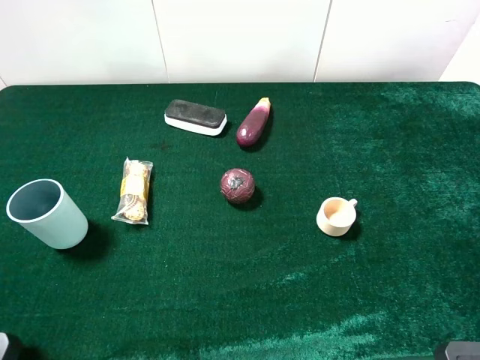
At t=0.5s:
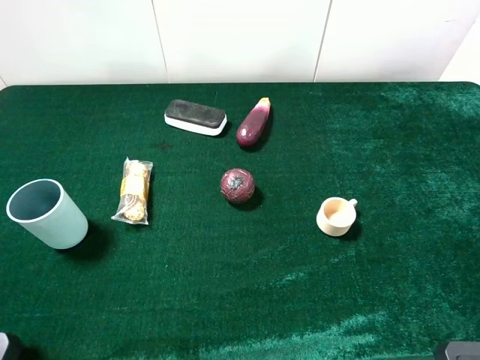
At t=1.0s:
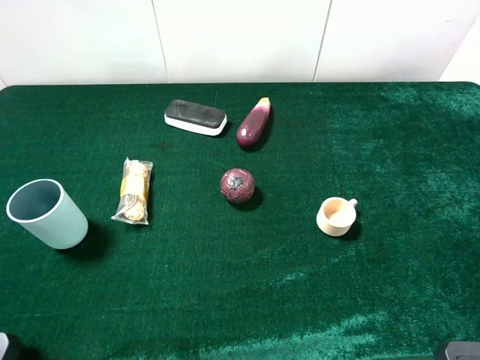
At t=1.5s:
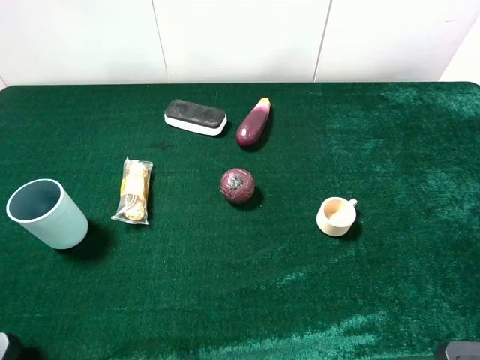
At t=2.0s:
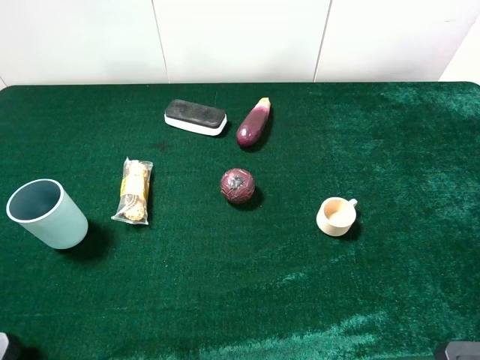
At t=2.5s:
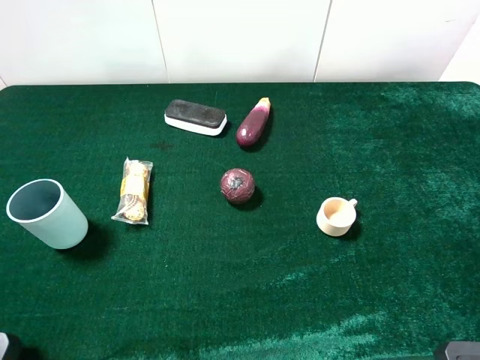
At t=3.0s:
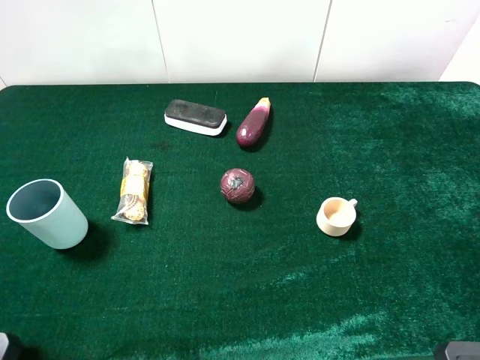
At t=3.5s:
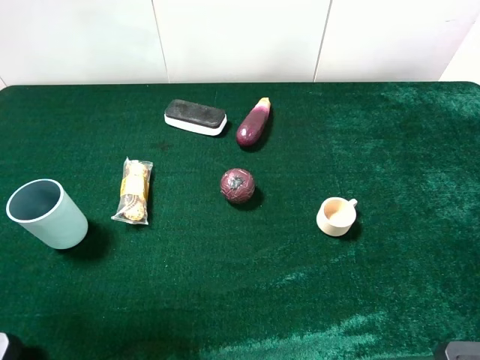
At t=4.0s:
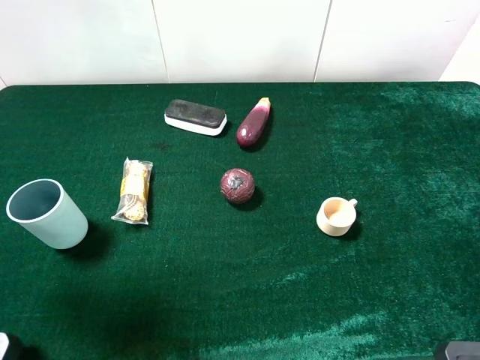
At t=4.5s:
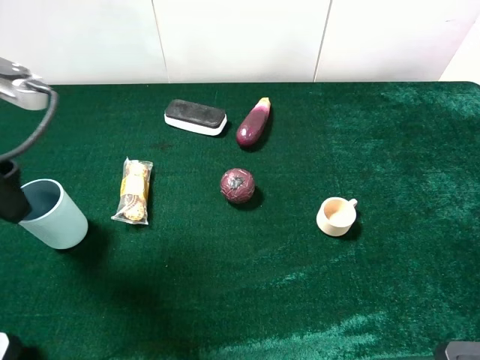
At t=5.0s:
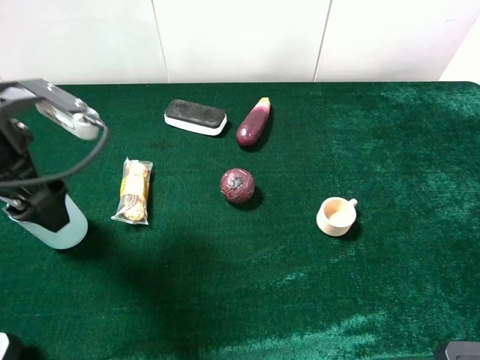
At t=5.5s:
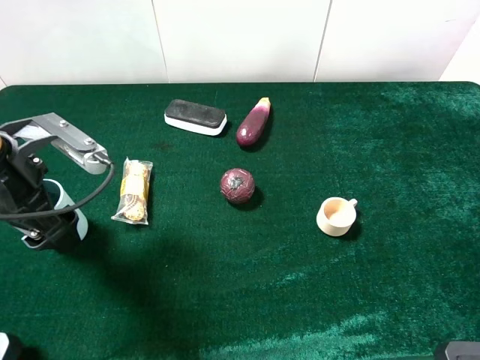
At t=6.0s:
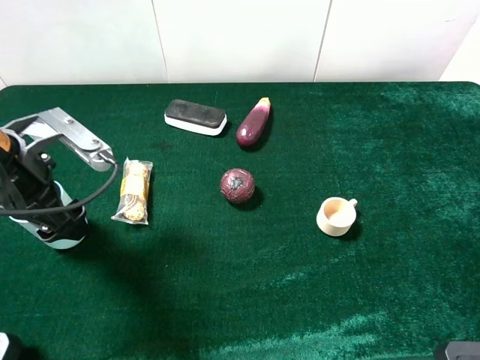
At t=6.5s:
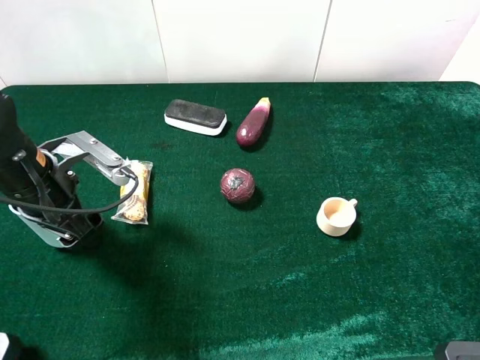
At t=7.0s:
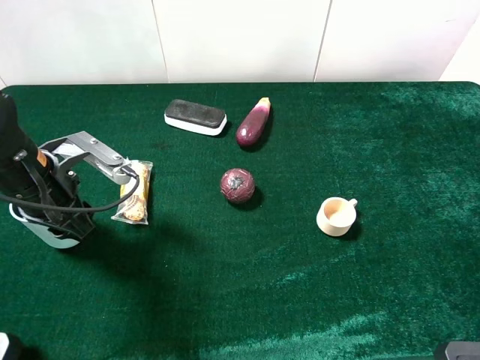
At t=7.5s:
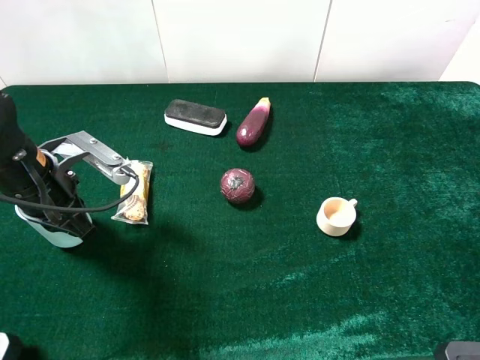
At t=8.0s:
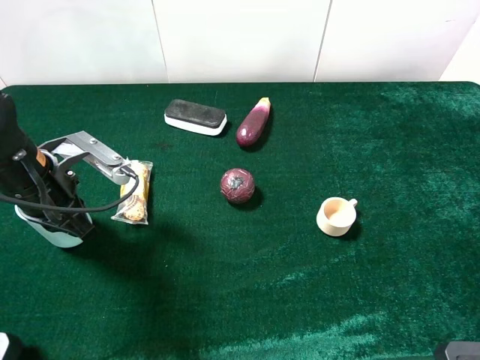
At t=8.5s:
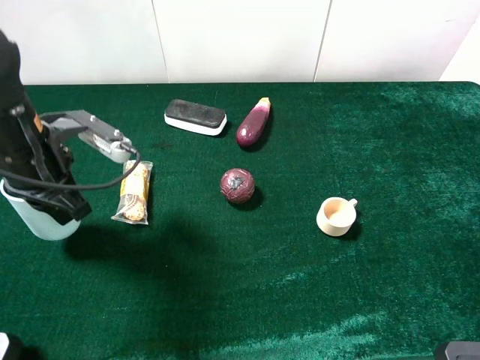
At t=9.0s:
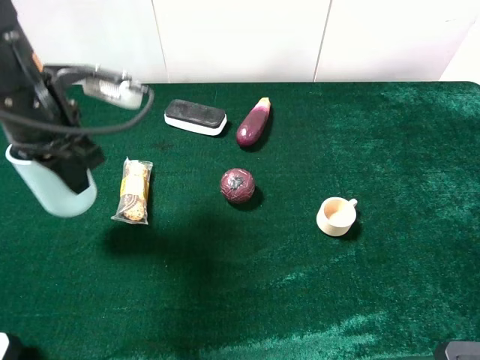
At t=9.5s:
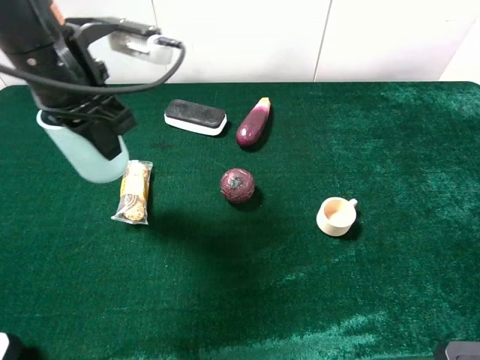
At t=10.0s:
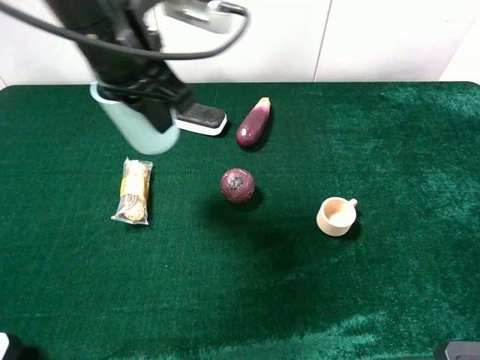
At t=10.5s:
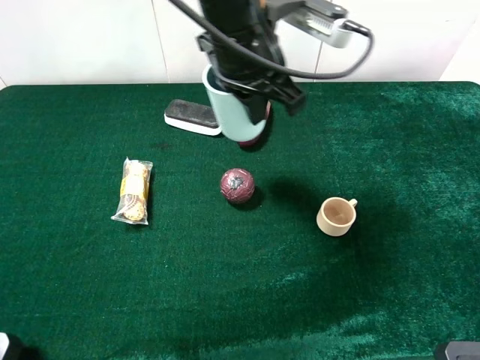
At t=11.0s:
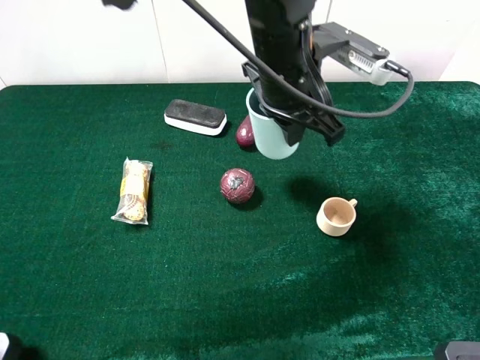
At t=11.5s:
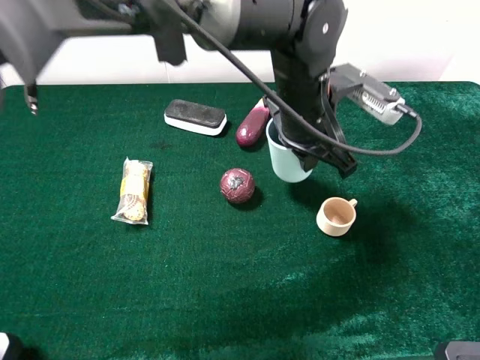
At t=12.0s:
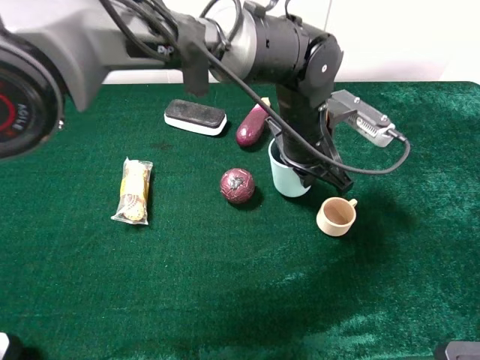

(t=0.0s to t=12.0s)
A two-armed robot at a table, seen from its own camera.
Task of the whole recording: the gripper move the object.
Step, t=0.0s - t=8.0s: Grasp the cyan cup with the left gripper.
t=0.0s - t=2.0s: Both grippers stay put.
t=2.0s - t=4.0s: The left gripper is displaced forward by some 15 cm.
t=4.0s - t=6.0s: The left gripper shifts about 15 cm downward, to the right and forward.
t=6.0s - t=8.0s: The left gripper closes.
t=8.0s - t=10.0s: The left gripper is displaced upward, to the right and forward by roughly 20 cm.
t=10.0s - t=12.0s: The left gripper is displaced to the right and downward by approximately 25 cm.

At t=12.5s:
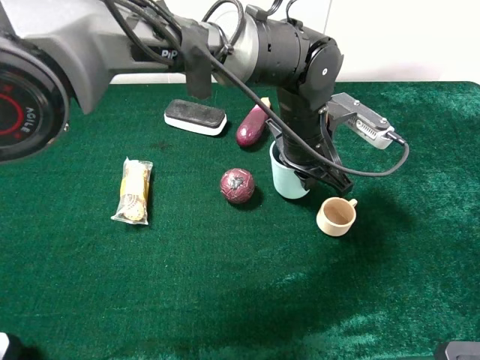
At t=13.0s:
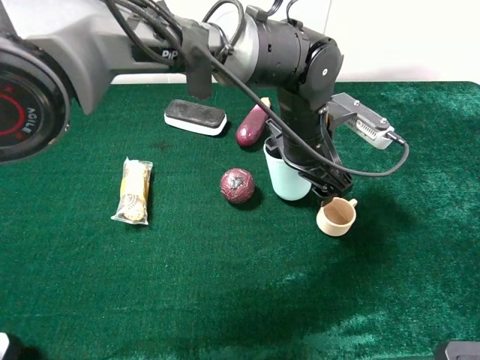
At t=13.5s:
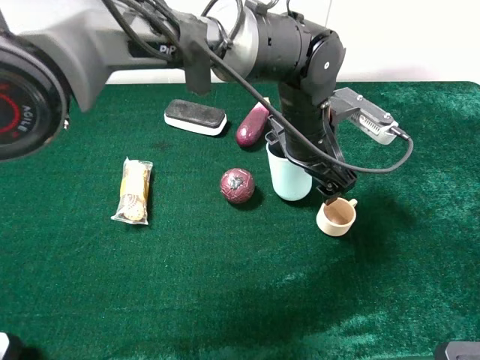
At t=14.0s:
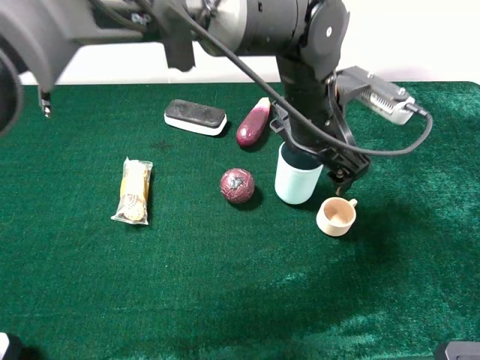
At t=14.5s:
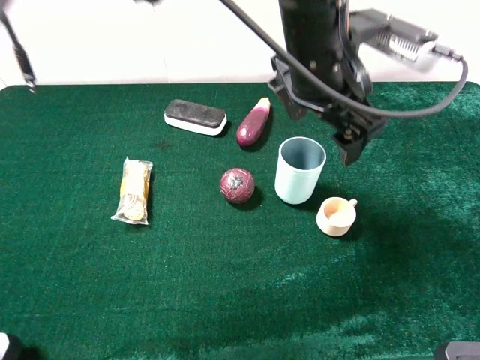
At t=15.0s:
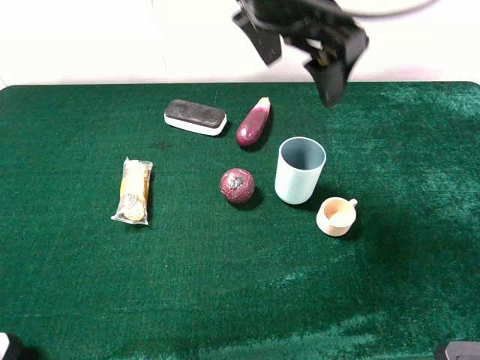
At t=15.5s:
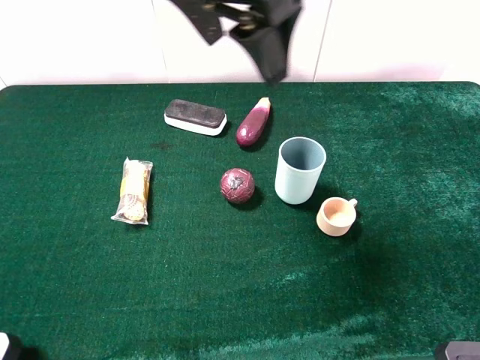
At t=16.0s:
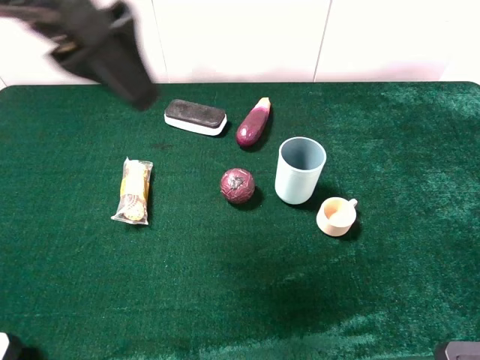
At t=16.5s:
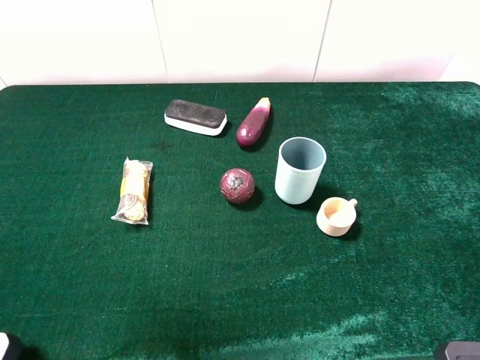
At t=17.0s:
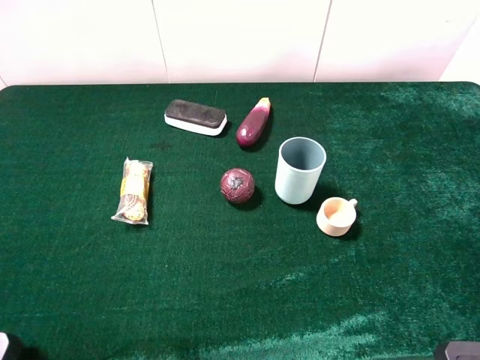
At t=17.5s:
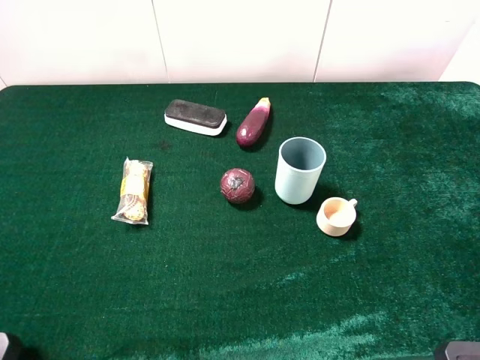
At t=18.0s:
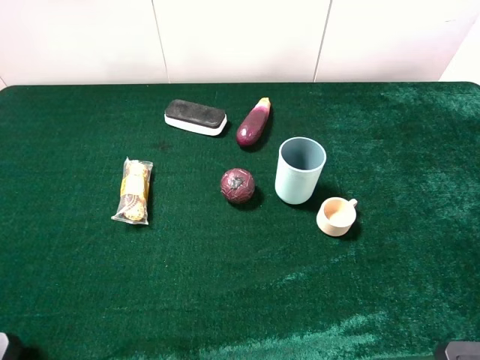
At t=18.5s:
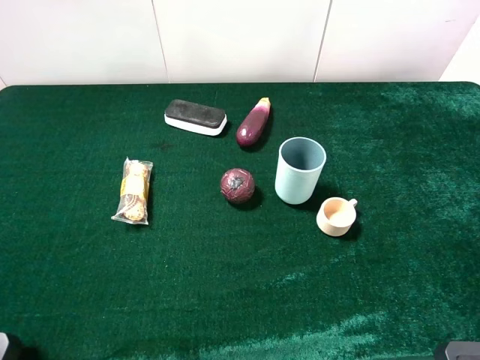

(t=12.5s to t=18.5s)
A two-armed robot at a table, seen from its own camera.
Task of the whole recording: the gripper move the object.
t=12.5s - t=14.5s: The left gripper is displaced upward by roughly 10 cm, and opens.
t=14.5s - t=16.5s: The left gripper goes roughly 40 cm to the left, backward and upward.
t=16.5s - t=18.5s: The left gripper goes about 15 cm downward, backward and to the left.

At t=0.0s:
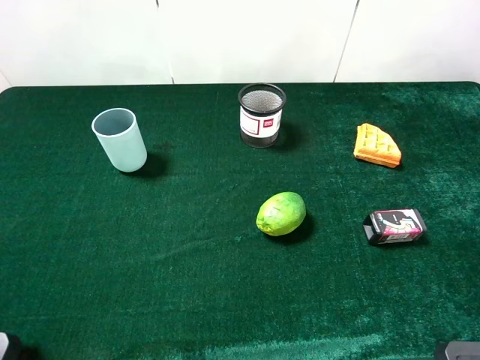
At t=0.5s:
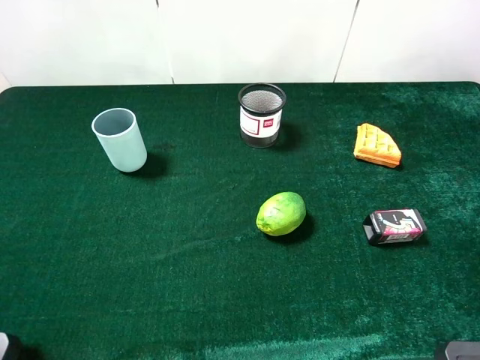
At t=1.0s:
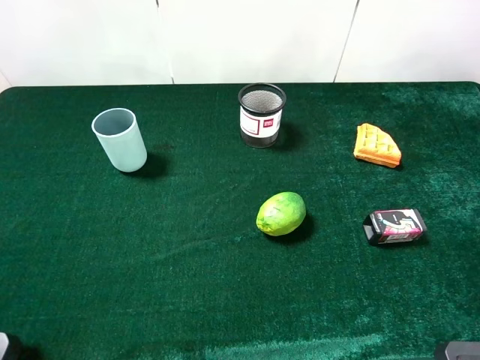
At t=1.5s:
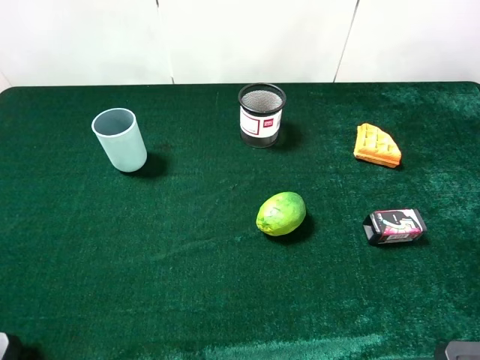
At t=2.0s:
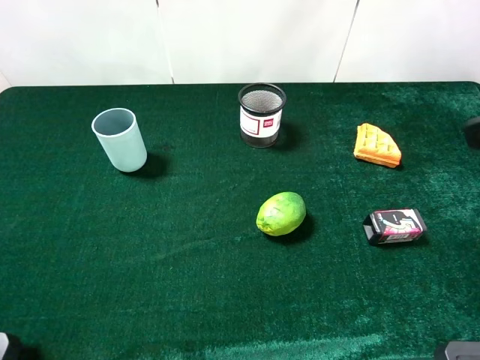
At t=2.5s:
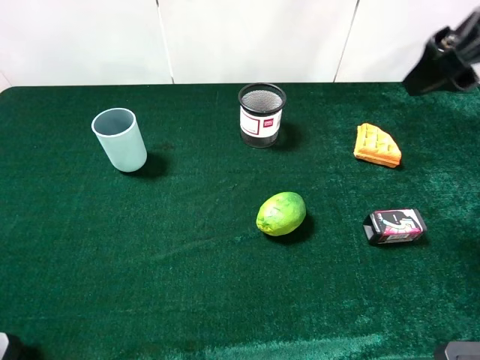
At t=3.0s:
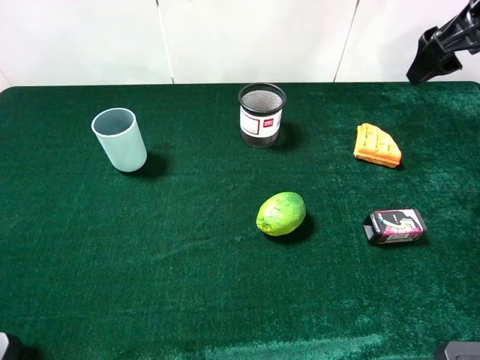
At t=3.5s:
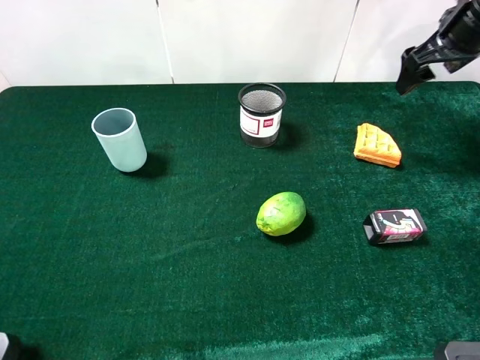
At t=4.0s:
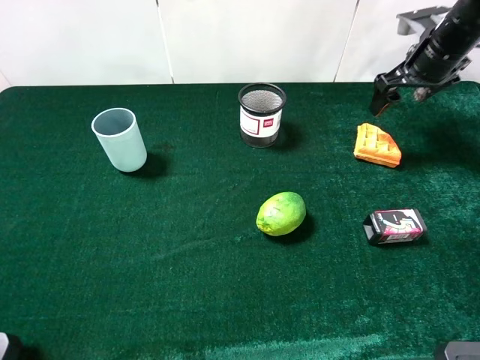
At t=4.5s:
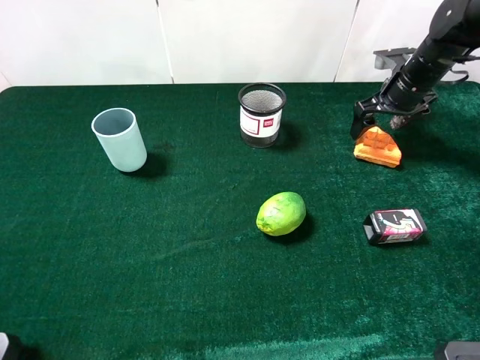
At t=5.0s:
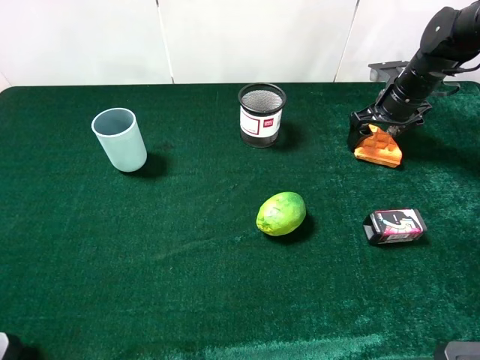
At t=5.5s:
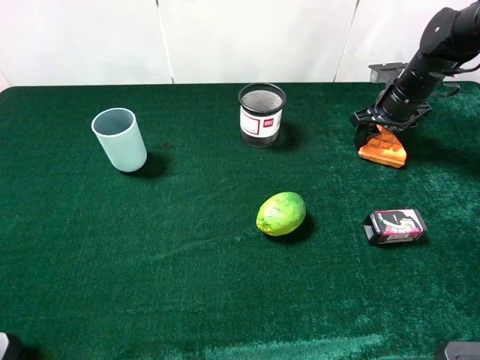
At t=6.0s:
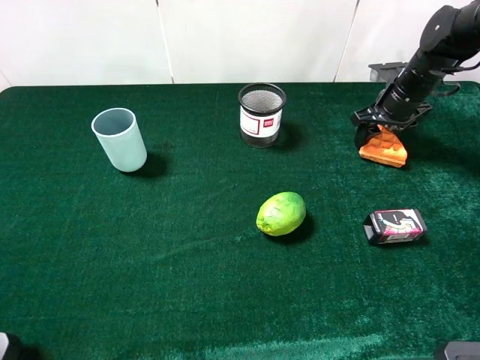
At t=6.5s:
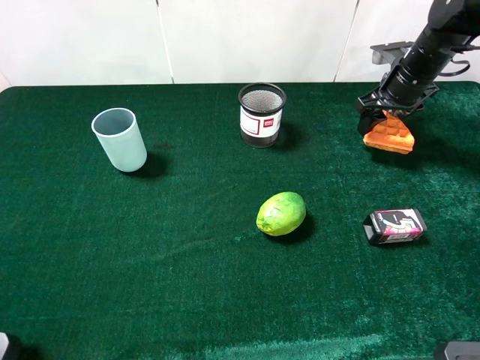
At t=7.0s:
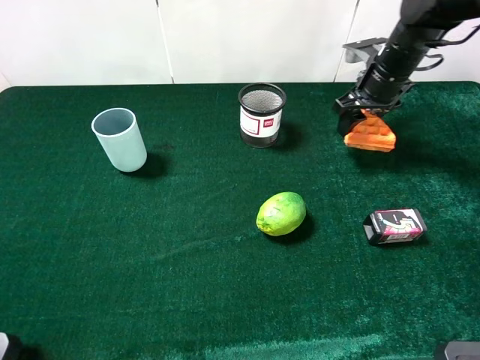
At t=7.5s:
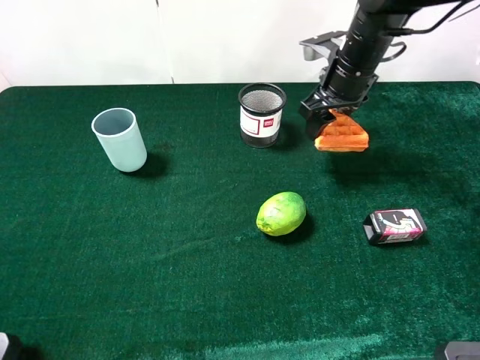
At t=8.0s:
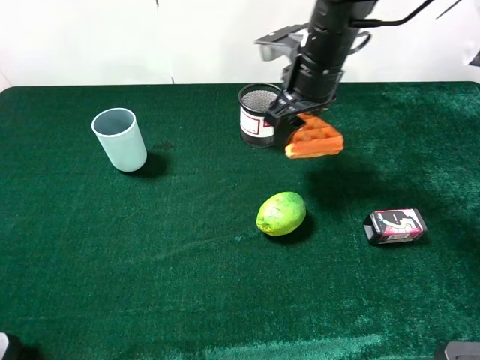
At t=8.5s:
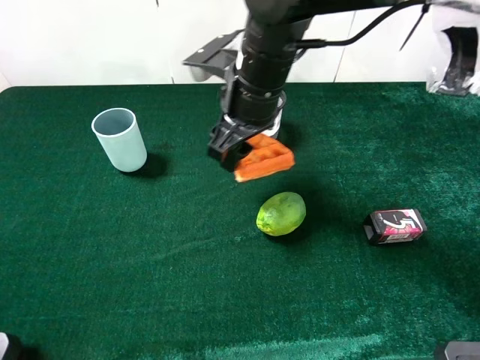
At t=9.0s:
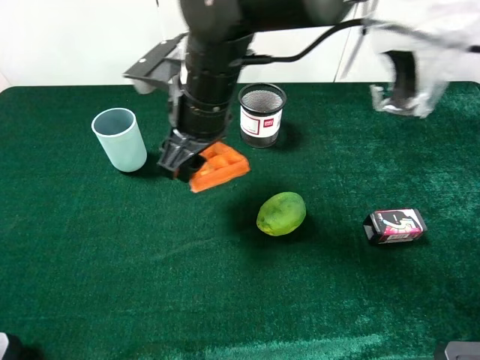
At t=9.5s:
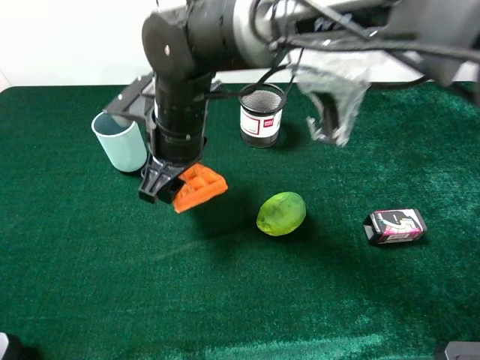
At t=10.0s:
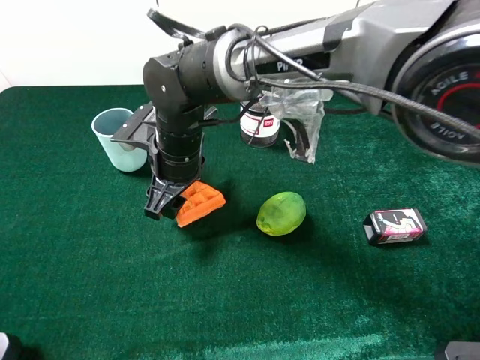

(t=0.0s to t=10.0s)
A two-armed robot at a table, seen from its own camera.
Task of the whole recording: the gripper move the object.
Step, t=0.0s - t=5.5s: Grasp the wallfe with the right gripper.
t=2.0s - t=4.0s: The right gripper heads forward and downward, covering approximately 35 cm.
t=4.0s - t=6.0s: The right gripper goes roughly 5 cm downward, and closes its fingers.
t=6.0s - t=8.0s: The right gripper travels to the left, upward and backward by approximately 25 cm.
t=8.0s - t=10.0s: The right gripper shifts about 20 cm to the left, downward and backward.
